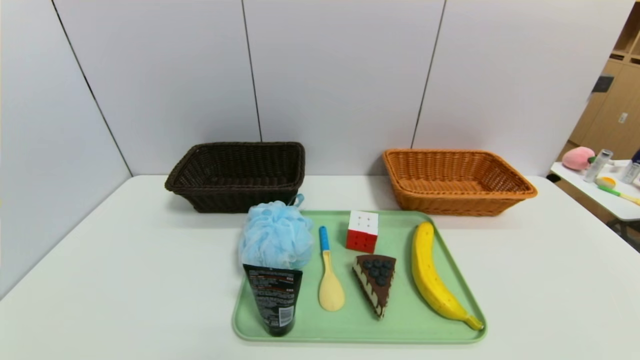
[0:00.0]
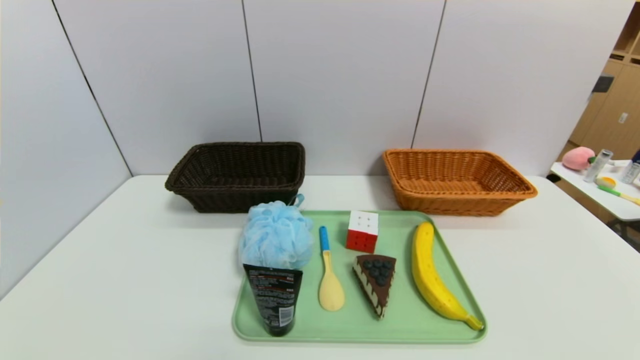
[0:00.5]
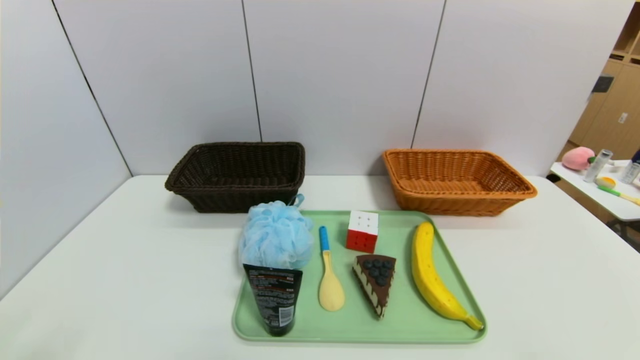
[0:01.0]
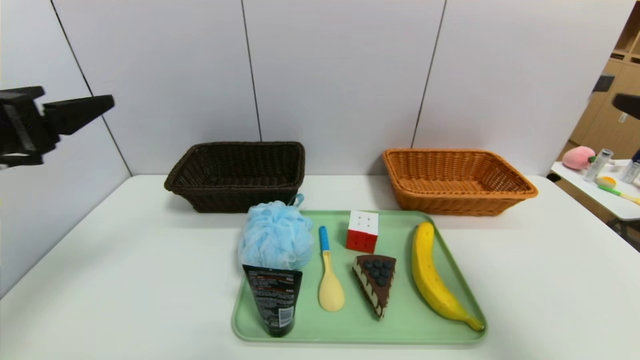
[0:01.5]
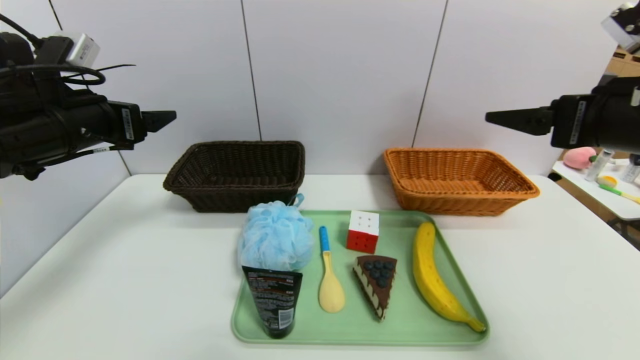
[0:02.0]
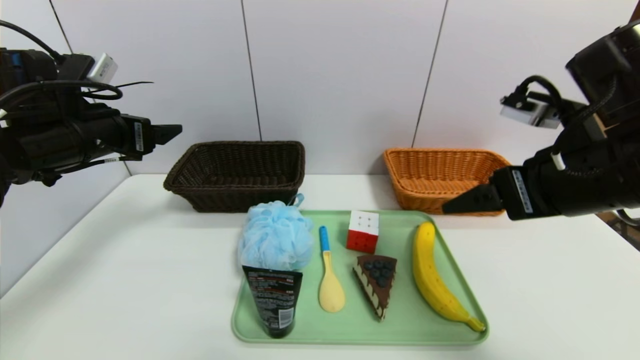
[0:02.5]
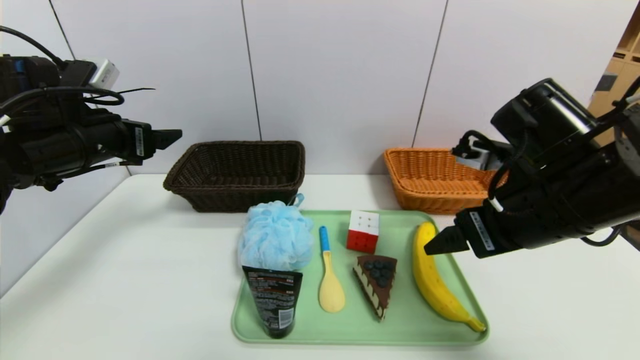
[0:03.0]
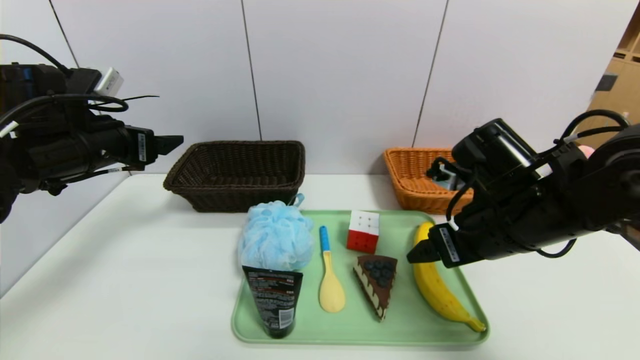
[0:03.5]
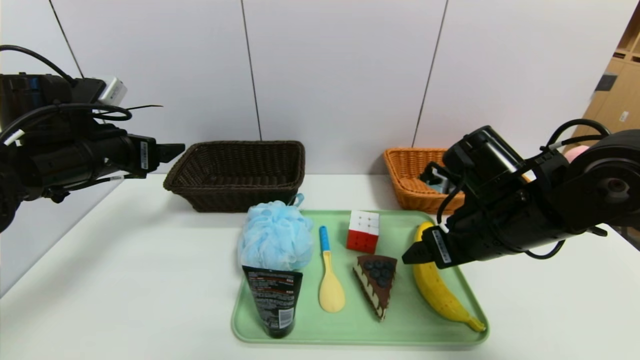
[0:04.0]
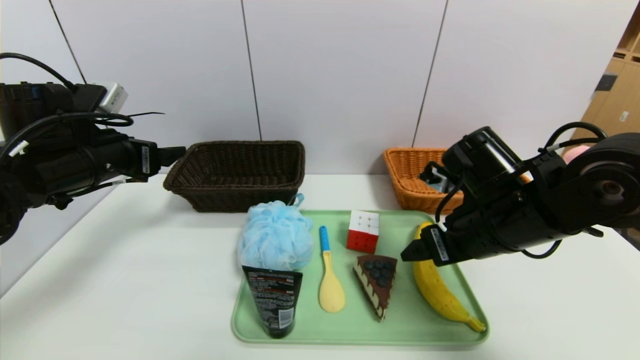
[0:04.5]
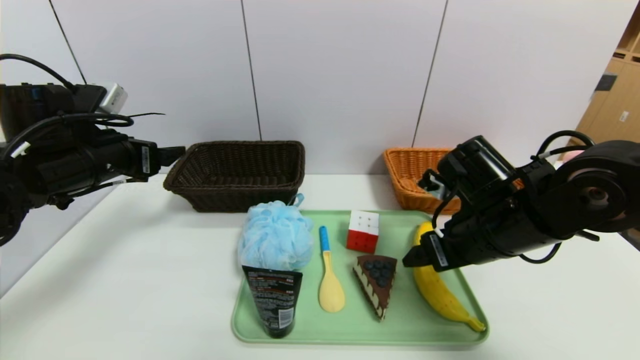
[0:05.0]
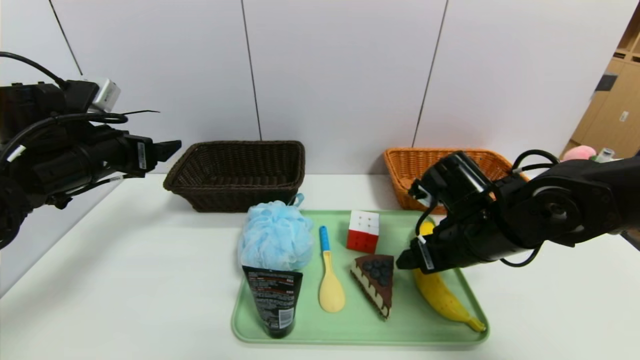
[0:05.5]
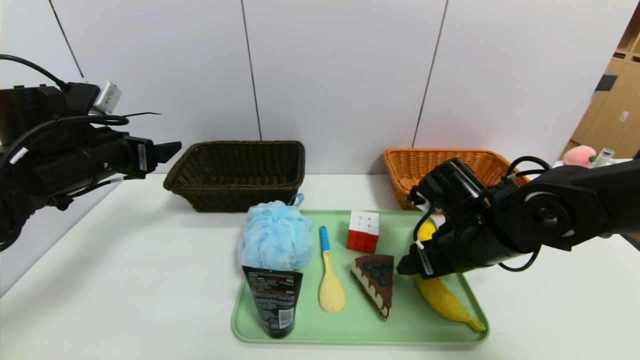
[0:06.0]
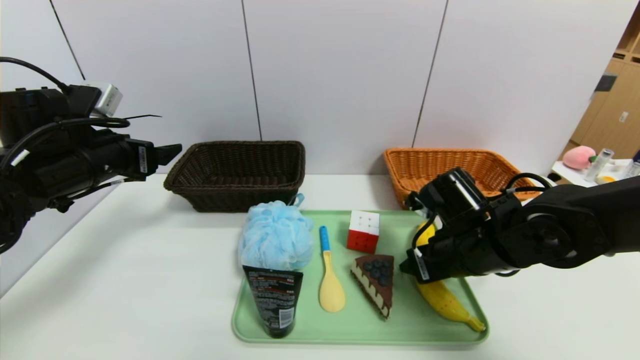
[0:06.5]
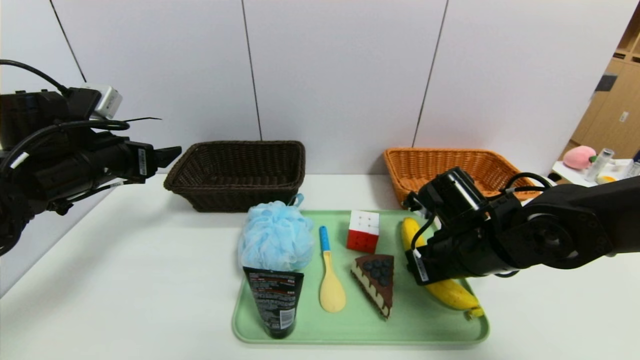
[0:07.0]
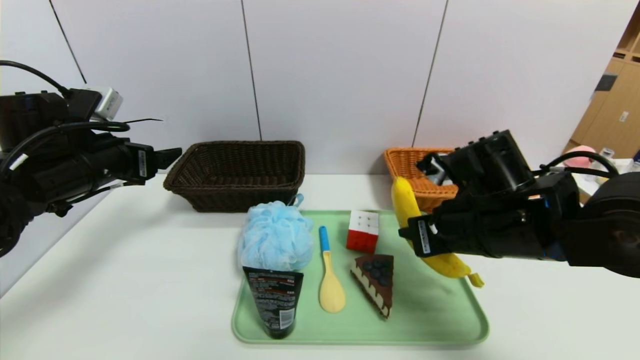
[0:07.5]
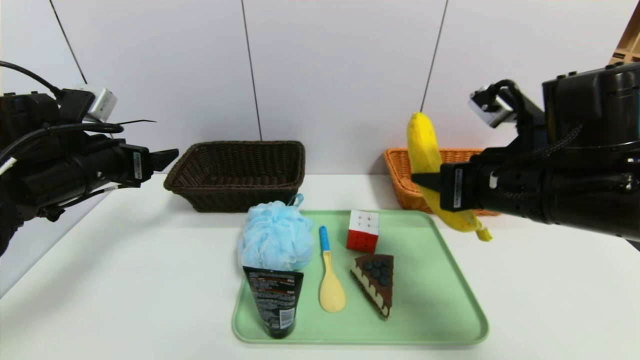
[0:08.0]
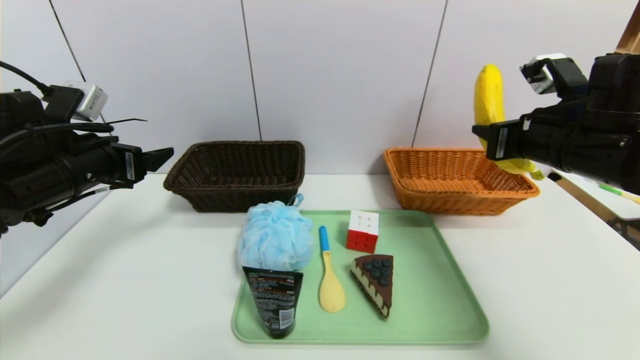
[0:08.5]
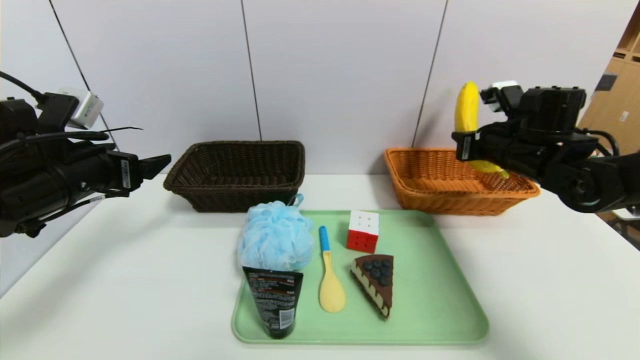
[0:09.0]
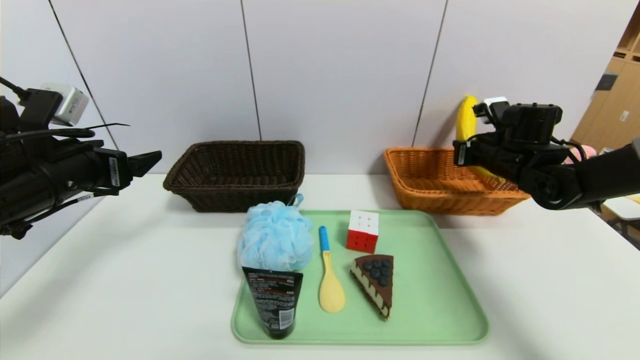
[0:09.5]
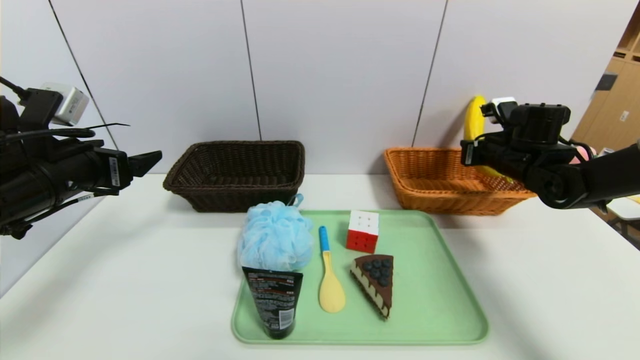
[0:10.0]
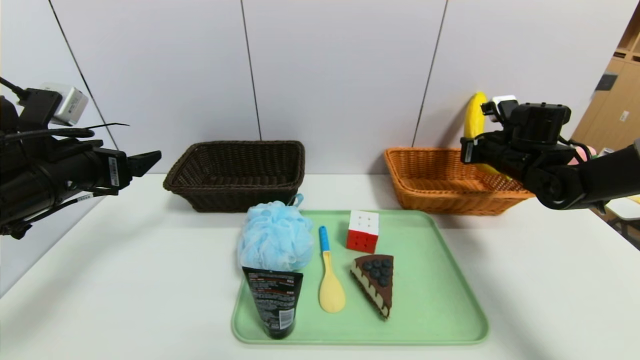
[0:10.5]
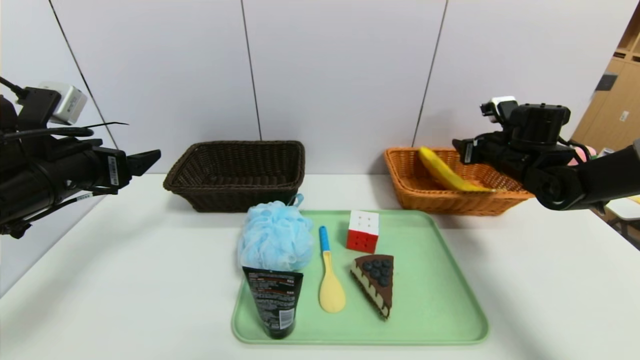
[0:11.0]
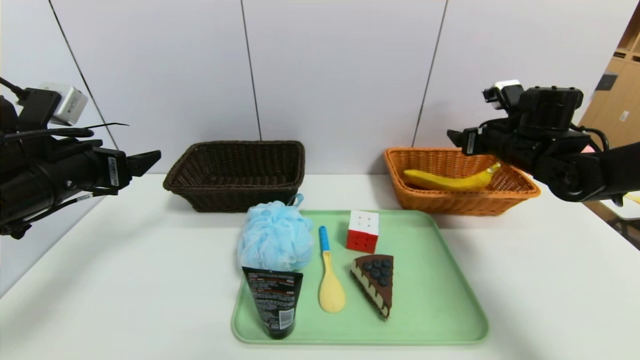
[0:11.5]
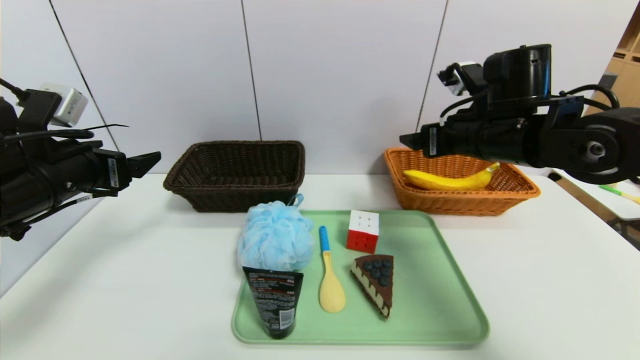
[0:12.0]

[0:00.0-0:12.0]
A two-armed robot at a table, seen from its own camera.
Task of the whole recording: place the food in the right basket with the right gripper, and place the non food items in the left basket with the left gripper.
Step, 0:00.0 to 0:11.0: Grasp the banana and put it in the right basket.
0:00.0 to 0:02.0: Both grippers travel together forward and upward, about 35 cm.
0:02.0 to 0:04.0: The right gripper moves downward and to the left, approximately 15 cm.
0:04.0 to 0:06.0: The right gripper changes place by about 5 cm.
0:06.0 to 0:08.0: The right gripper is displaced upward by some 10 cm, and closes its fingers.
0:08.0 to 0:10.0: The right gripper heads forward, to the right and downward, covering about 25 cm.
0:10.0 to 0:12.0: The right gripper is displaced to the left, backward and upward by about 20 cm, and opens up.

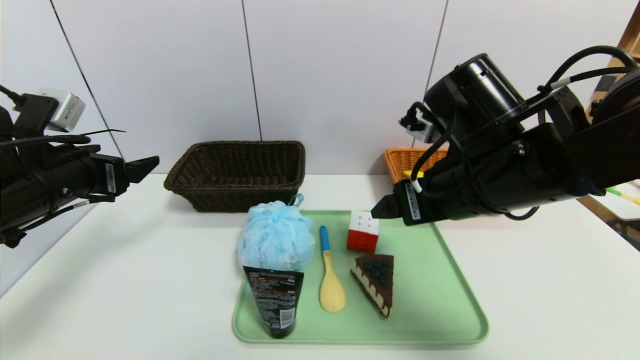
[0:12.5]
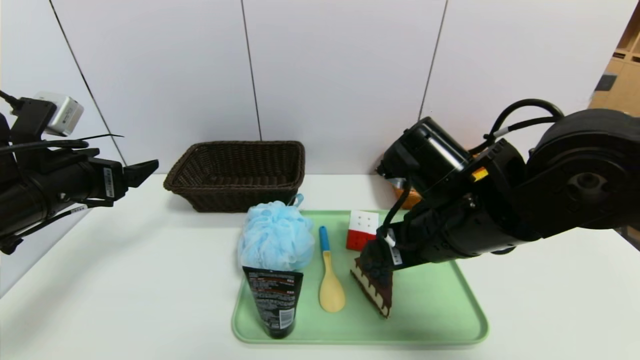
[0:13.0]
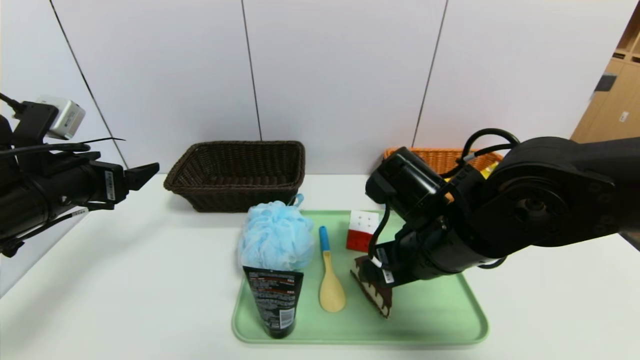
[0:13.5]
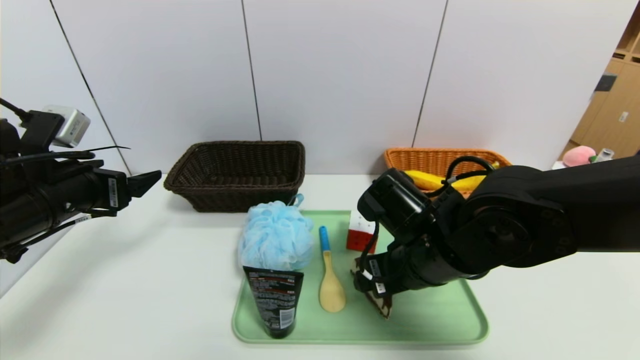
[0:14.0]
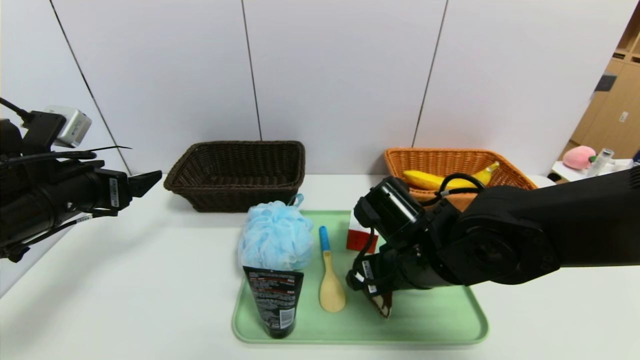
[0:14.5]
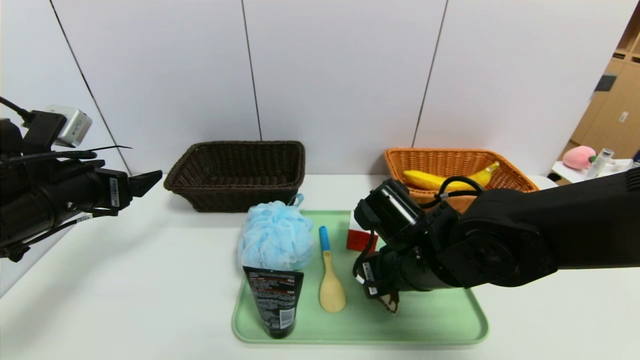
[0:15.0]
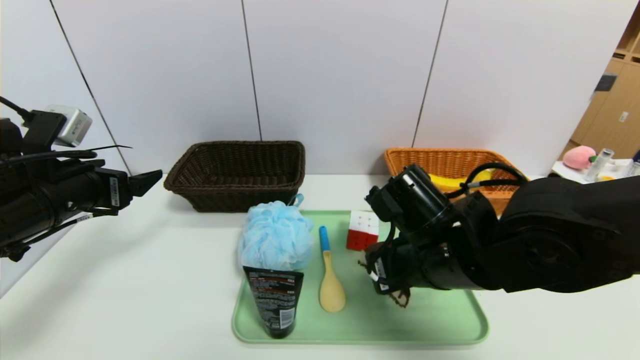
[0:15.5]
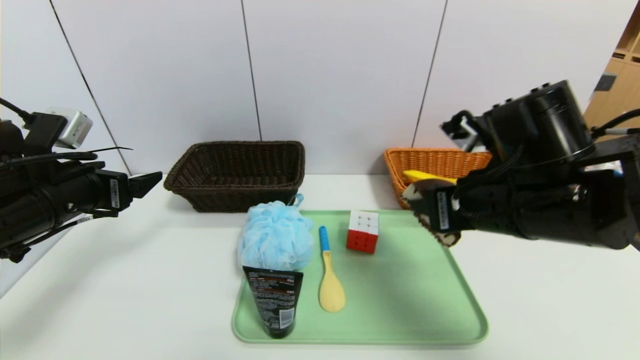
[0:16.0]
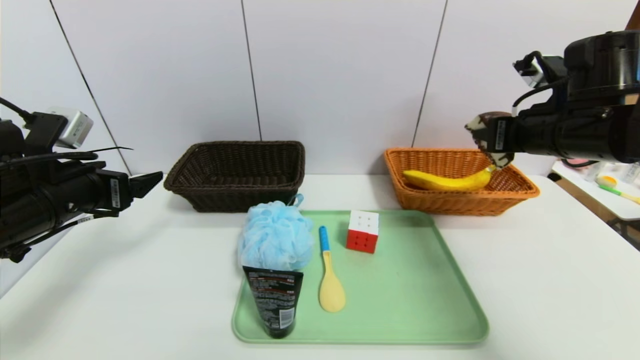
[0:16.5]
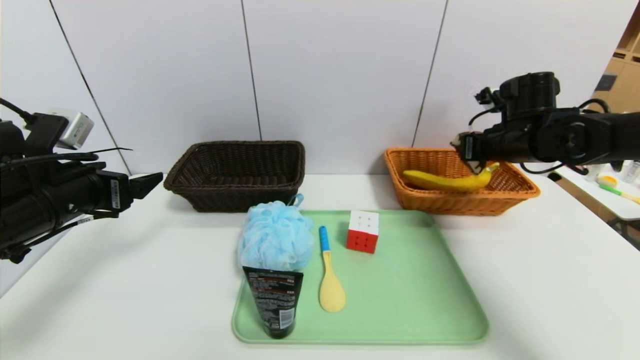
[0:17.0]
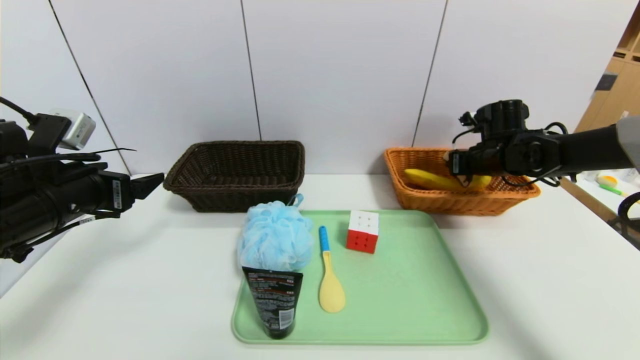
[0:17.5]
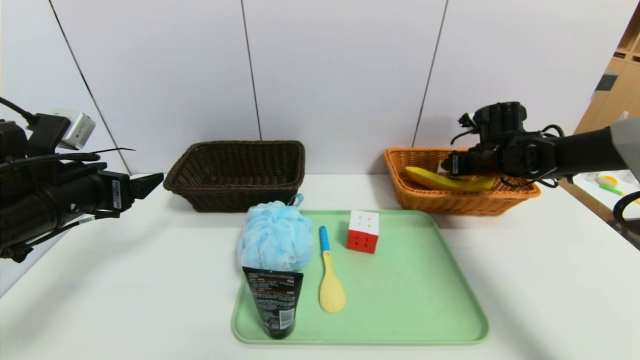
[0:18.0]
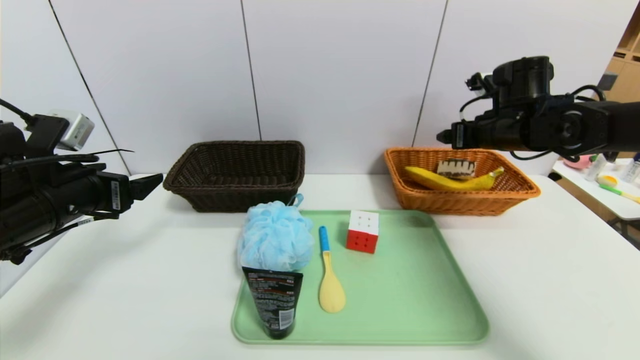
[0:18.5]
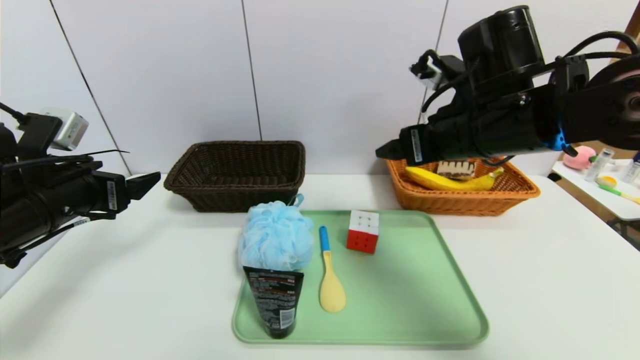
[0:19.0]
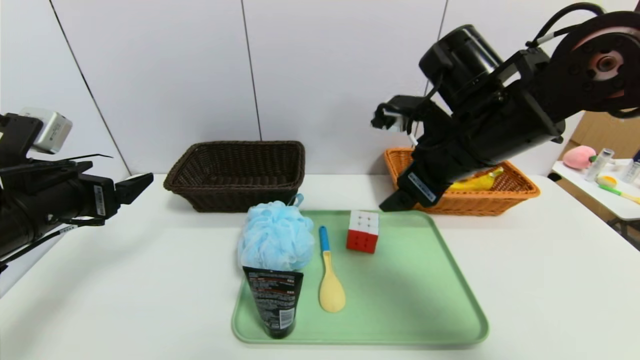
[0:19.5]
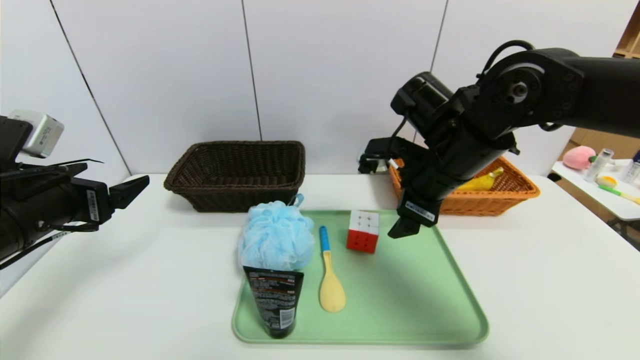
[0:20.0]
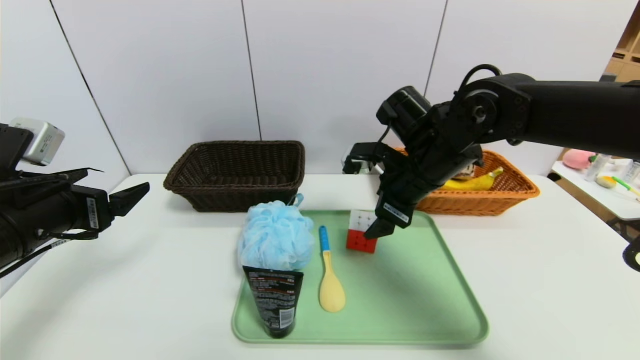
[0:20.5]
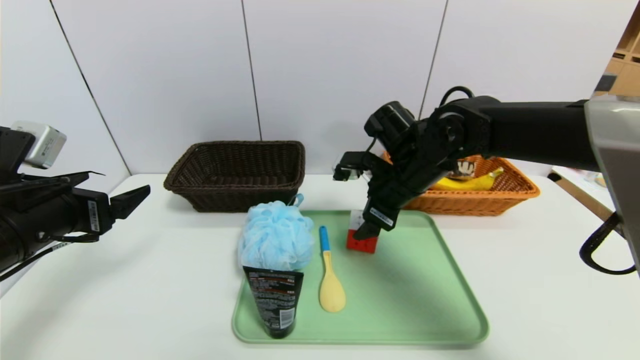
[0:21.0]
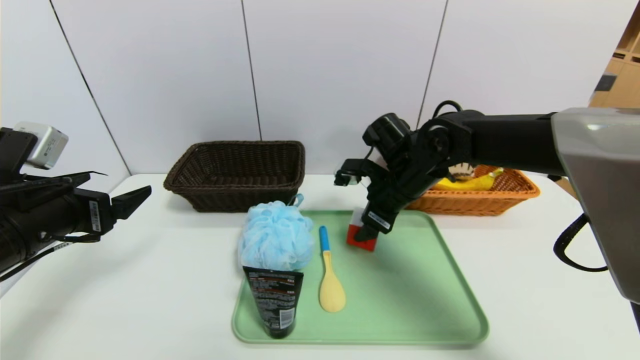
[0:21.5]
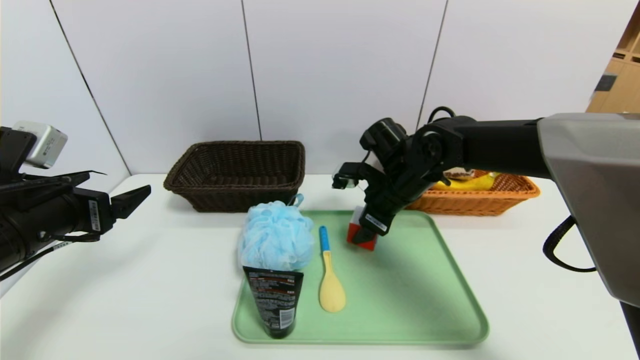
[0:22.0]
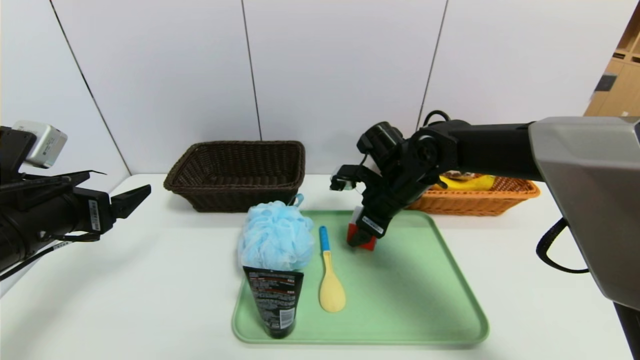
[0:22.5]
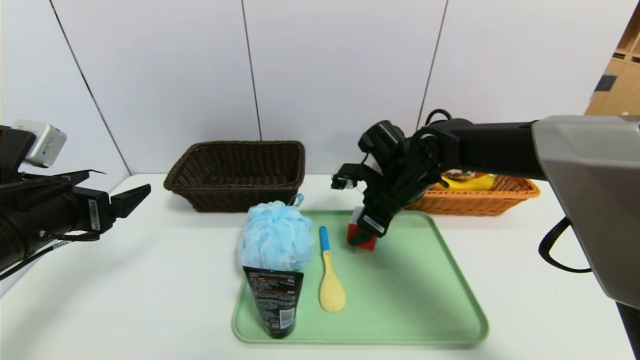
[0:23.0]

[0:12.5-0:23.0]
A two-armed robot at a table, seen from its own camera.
Task of the whole recording: place the food in the right basket with the right gripper, and place the non food items in the left basket with the left gripper.
Step, 0:12.5 to 0:18.0: Grasp the triangle cake and put it in the right basket.
0:12.5 to 0:14.5: The right gripper moves downward, about 10 cm.
0:14.5 to 0:16.5: The right gripper travels to the right and upward by approximately 20 cm, and closes.
0:16.5 to 0:19.0: The right gripper travels to the left by approximately 10 cm, moves approximately 15 cm forward and comes back, and opens up.
0:19.0 to 0:21.0: The right gripper moves downward and forward, approximately 10 cm.
0:21.0 to 0:23.0: The grippers make only small movements.
